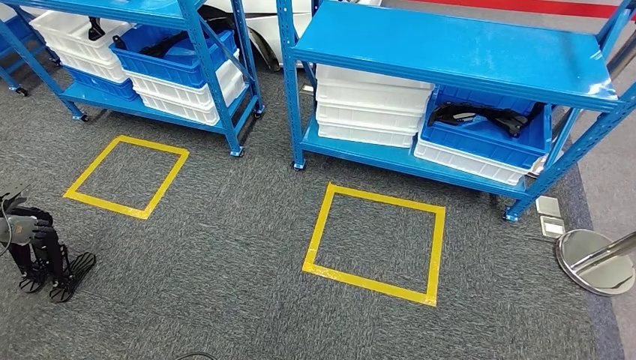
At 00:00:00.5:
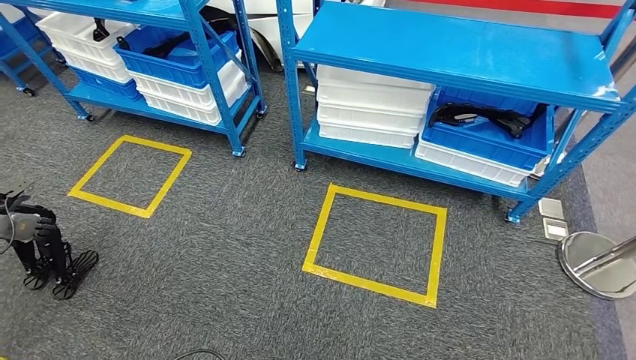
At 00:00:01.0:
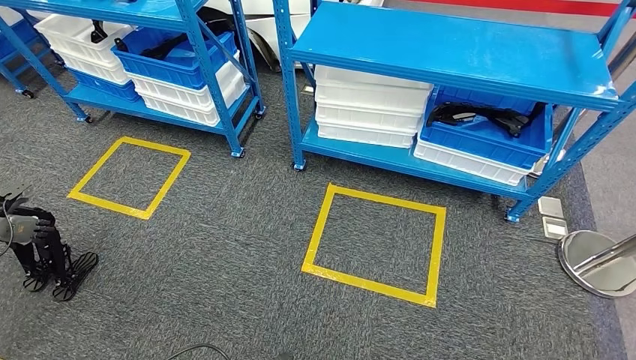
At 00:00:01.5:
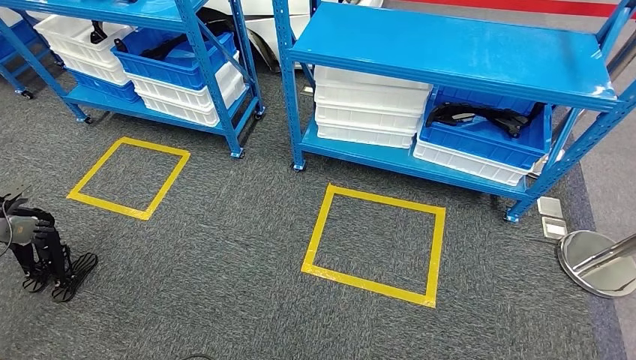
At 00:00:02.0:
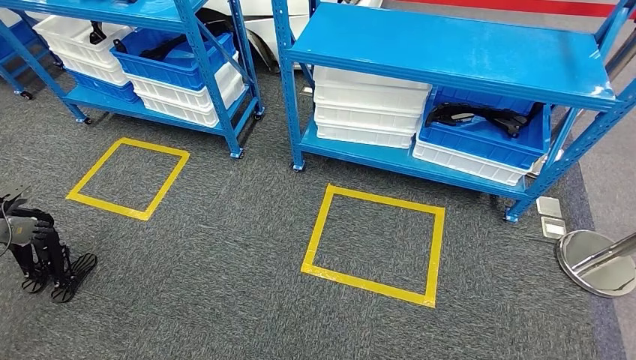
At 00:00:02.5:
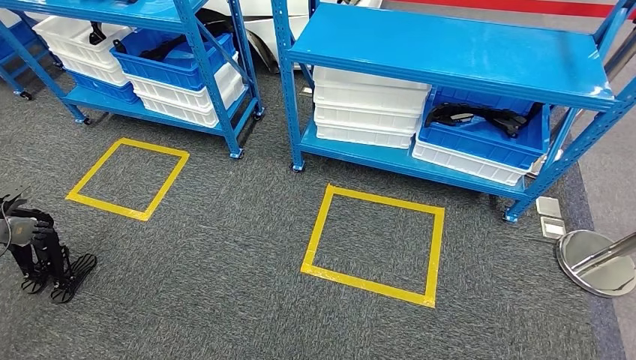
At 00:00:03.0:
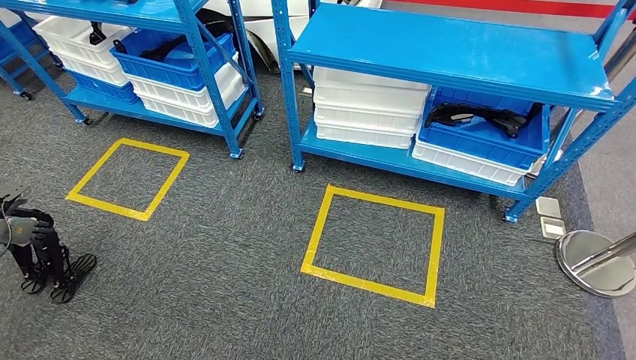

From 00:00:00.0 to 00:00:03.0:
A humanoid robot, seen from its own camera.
Step, from 00:00:00.0 to 00:00:03.0: Return to the initial position at the shelf.
From 00:00:00.0 to 00:00:01.5: The right hand goes approximately 40 cm downward and to the left.
From 00:00:01.5 to 00:00:03.0: The left hand travels to the left and backward by about 10 cm. Meanwhile the right hand goes approximately 10 cm backward and to the right.
